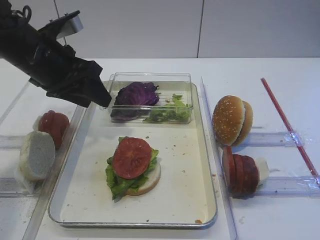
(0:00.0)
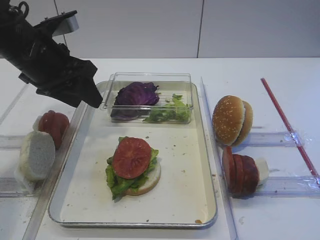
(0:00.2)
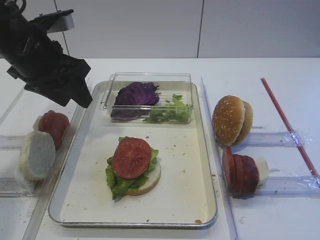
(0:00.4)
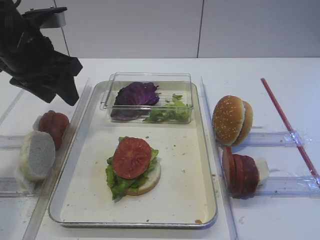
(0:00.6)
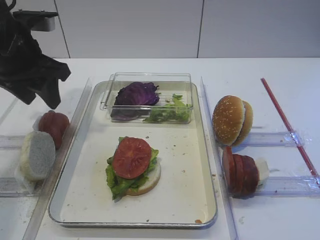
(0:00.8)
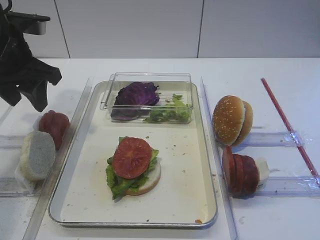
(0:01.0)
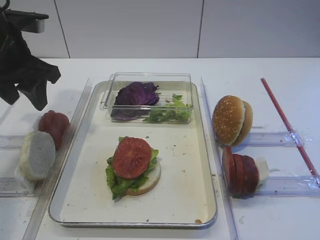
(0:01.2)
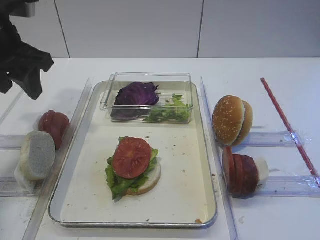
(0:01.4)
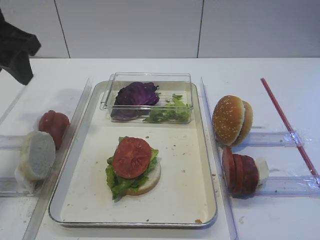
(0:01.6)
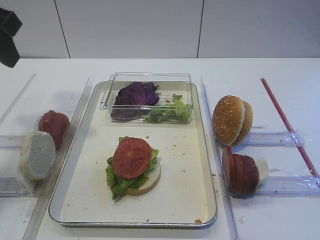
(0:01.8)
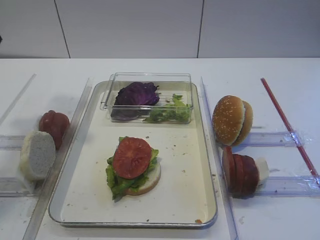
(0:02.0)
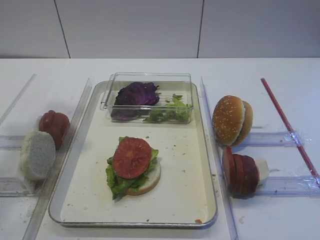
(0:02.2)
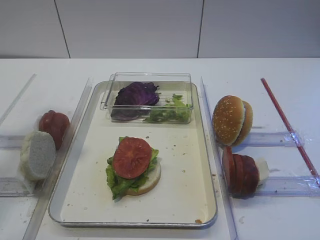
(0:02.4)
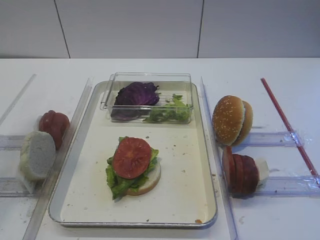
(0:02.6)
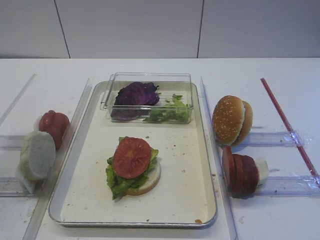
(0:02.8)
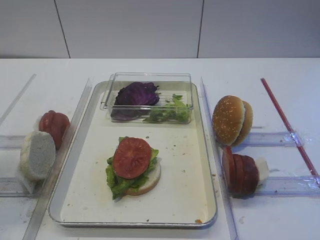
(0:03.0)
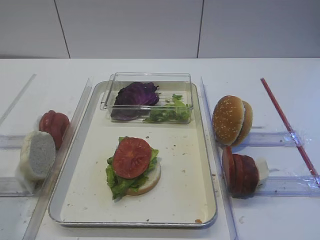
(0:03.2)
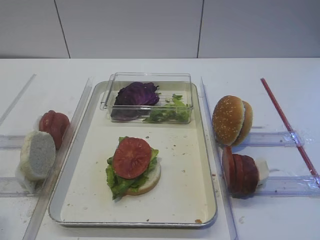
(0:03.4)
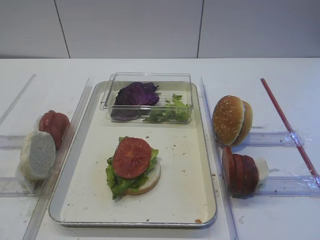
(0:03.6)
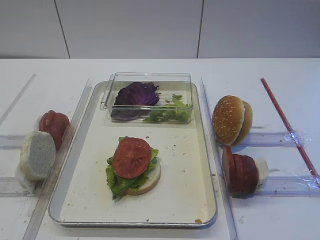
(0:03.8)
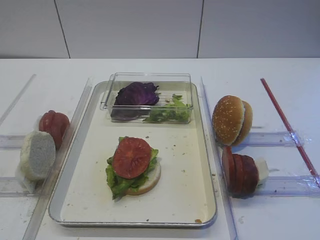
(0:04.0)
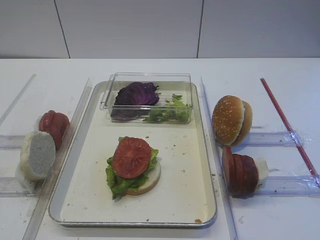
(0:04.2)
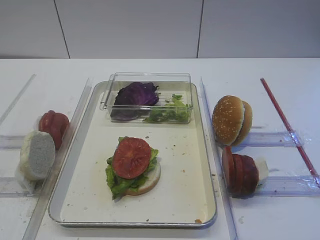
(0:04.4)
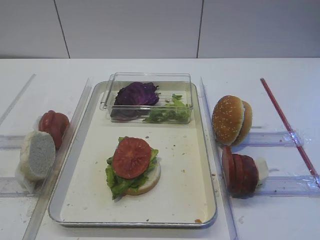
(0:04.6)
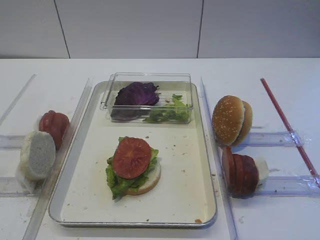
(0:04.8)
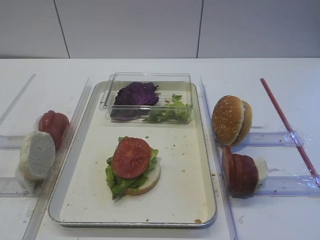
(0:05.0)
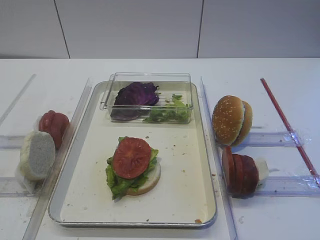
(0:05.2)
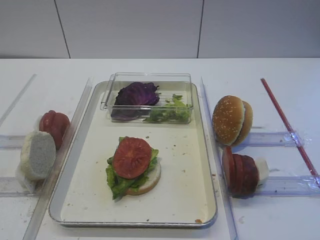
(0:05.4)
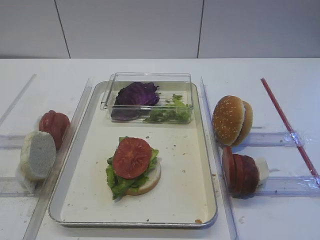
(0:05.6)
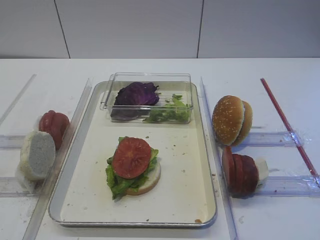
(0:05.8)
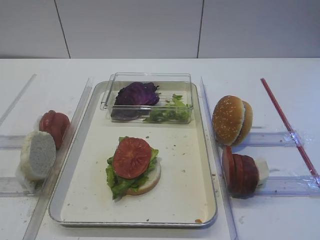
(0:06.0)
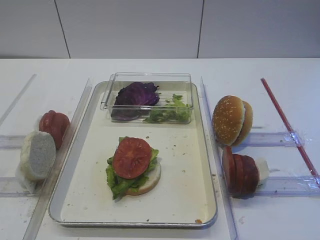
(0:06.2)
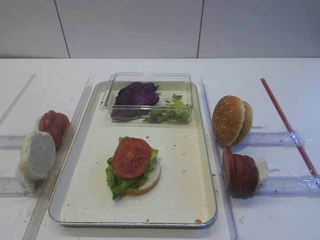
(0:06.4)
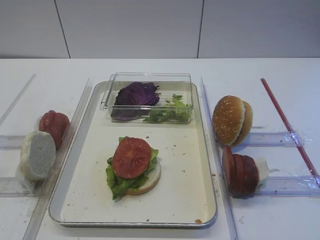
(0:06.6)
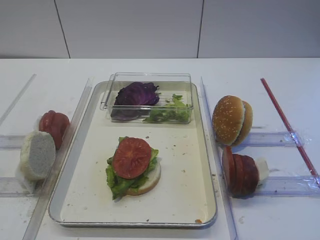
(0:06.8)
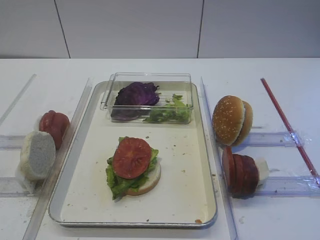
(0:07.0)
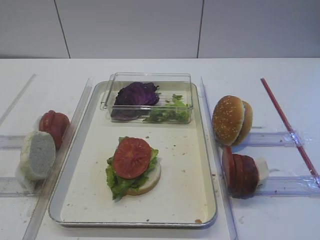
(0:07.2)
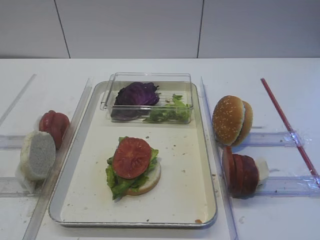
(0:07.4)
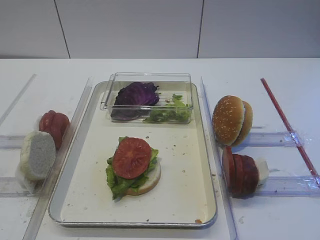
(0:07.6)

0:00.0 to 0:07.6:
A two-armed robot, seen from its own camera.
0:00.0 to 0:01.6: The left gripper travels upward and to the left by about 10 cm.
0:01.6 to 0:03.0: The left gripper heads backward, covering some 20 cm.
0:03.0 to 0:04.6: The left gripper goes roughly 15 cm downward and backward.
0:04.6 to 0:06.0: The two grippers keep their place.

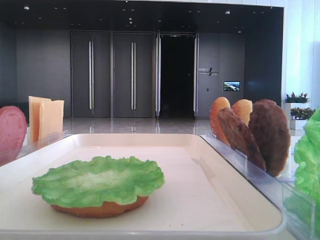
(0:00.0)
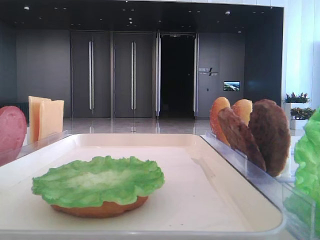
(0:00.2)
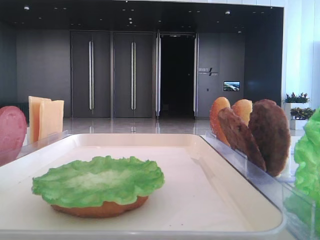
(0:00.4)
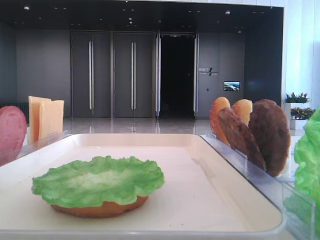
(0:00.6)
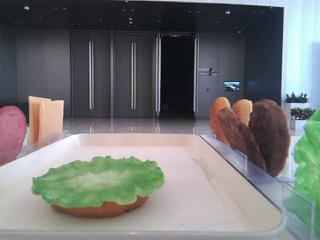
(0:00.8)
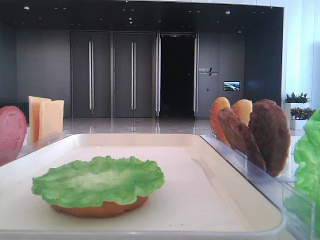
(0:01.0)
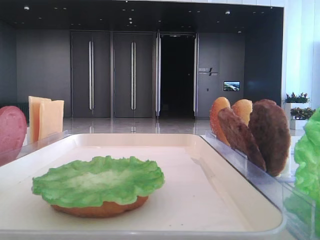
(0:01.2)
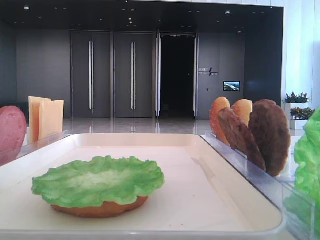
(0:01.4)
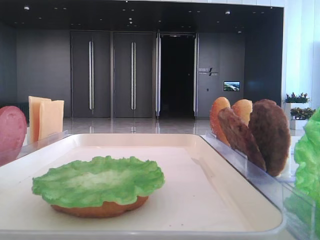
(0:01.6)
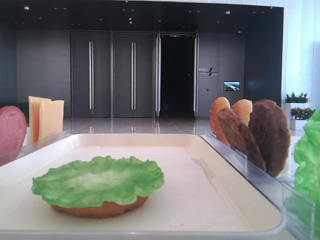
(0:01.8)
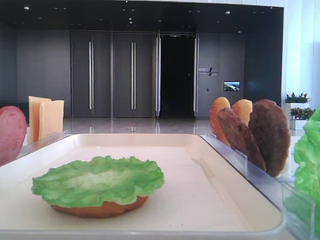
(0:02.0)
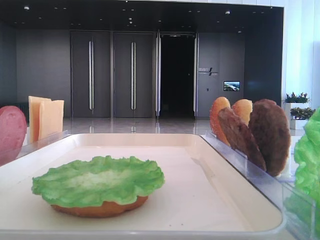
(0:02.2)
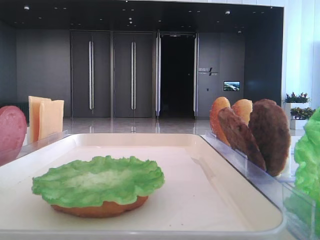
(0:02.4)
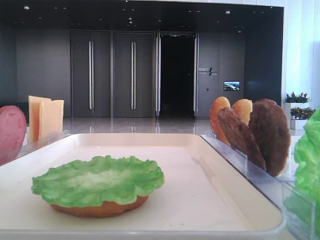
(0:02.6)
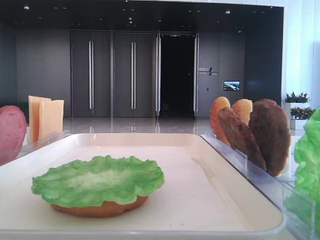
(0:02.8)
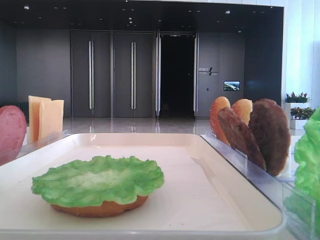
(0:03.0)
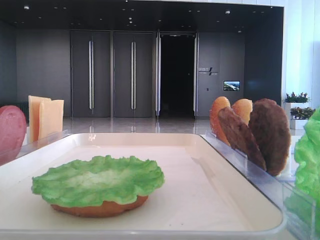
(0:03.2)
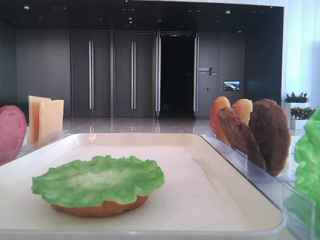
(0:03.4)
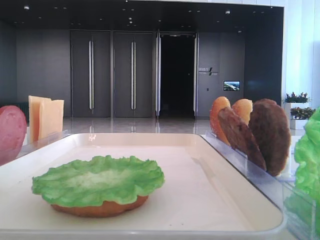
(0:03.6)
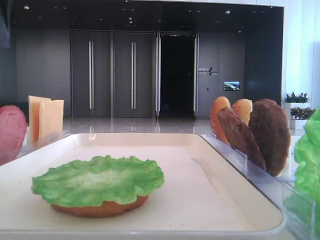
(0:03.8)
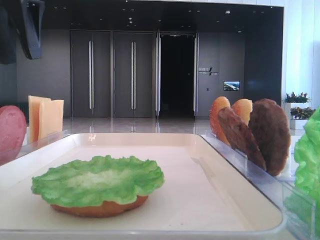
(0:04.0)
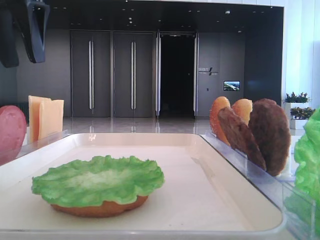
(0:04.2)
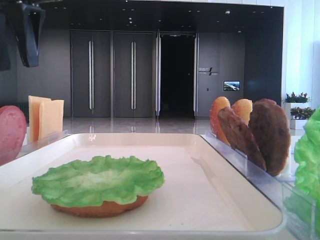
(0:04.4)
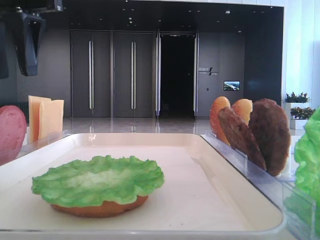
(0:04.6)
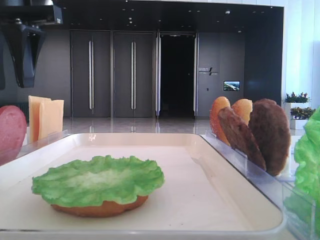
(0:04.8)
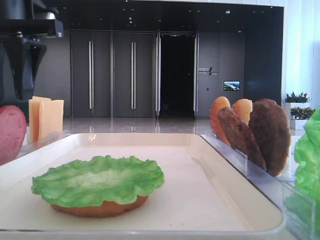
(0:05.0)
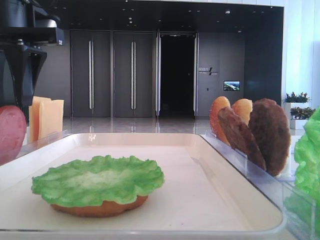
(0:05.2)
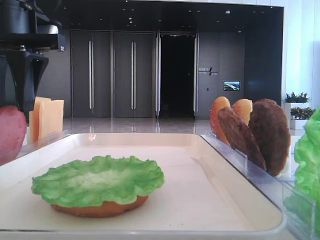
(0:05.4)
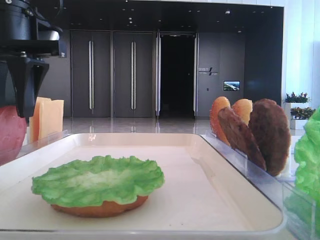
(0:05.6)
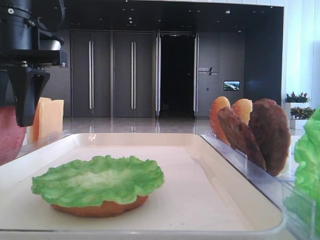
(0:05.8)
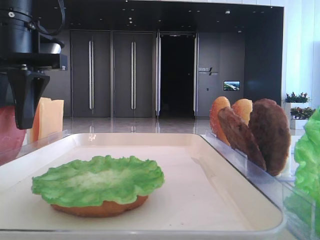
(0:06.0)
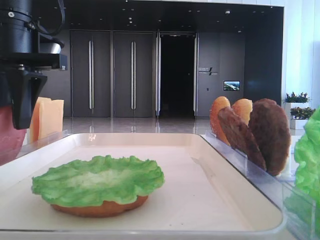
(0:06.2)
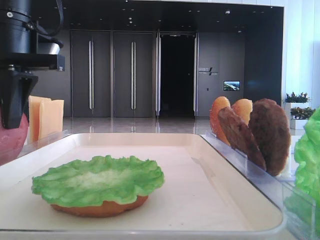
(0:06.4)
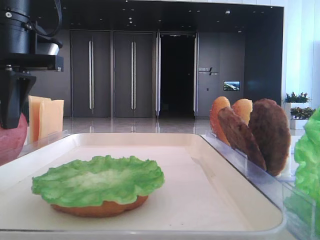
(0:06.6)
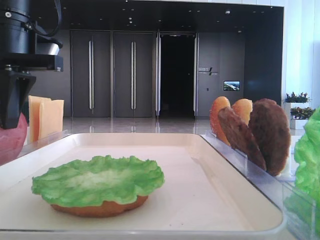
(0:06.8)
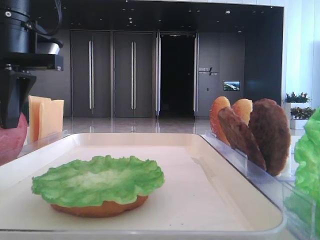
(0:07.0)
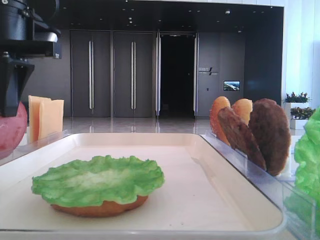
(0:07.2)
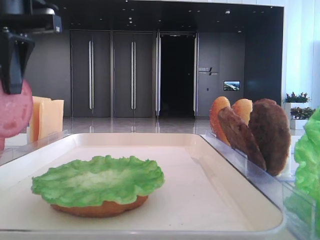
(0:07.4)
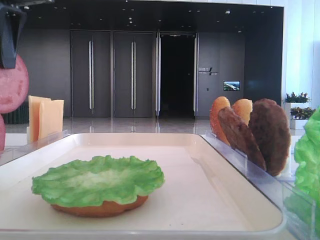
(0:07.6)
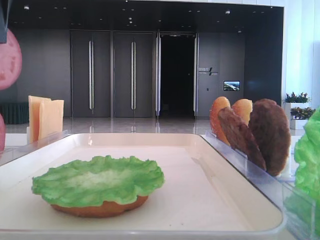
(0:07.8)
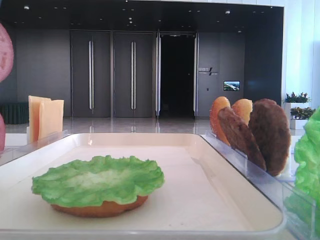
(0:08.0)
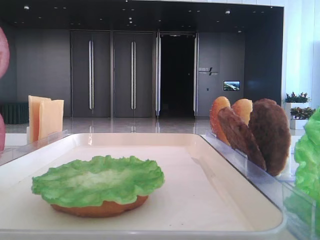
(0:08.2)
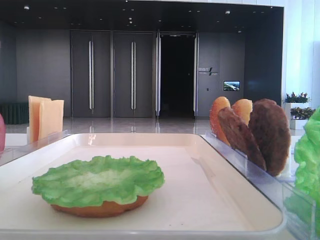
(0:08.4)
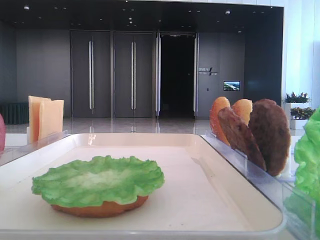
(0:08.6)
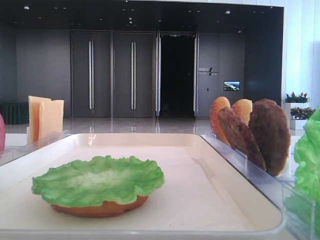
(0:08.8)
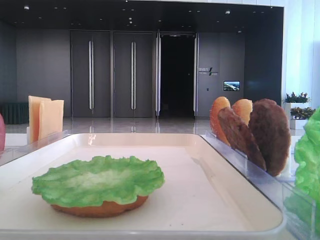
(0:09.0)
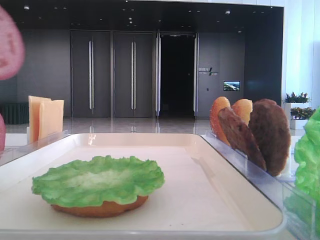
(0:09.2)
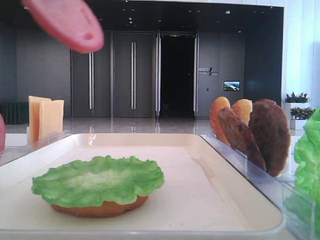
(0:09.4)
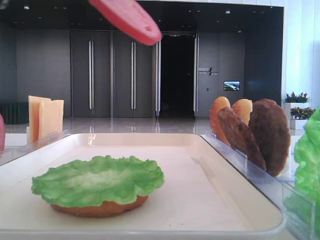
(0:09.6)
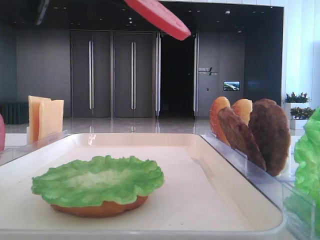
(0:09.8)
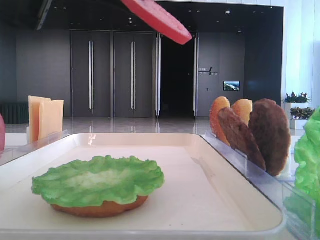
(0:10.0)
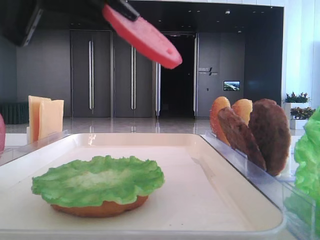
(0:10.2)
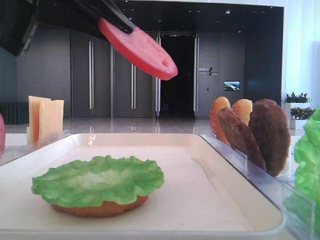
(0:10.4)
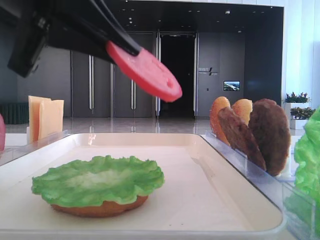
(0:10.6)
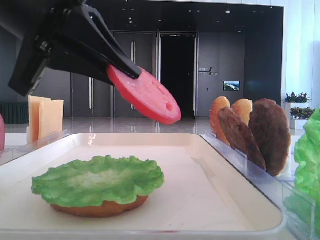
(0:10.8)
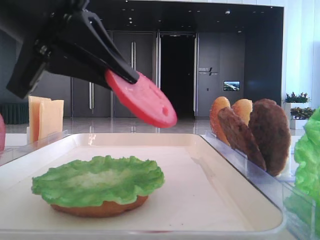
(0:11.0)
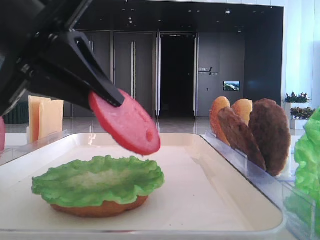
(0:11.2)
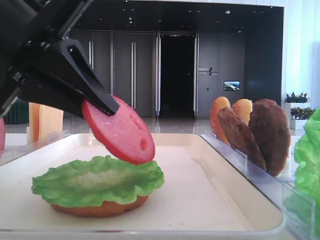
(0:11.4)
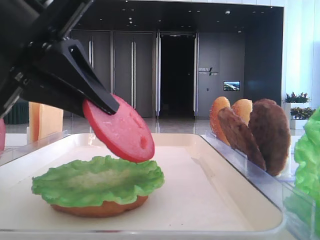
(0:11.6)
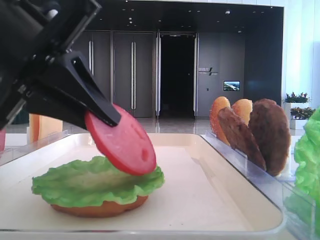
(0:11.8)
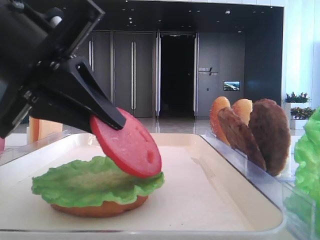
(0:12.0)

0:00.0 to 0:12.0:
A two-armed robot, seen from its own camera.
Step, 0:00.0 to 0:06.8: Pick up the tomato slice with the left hand.
0:03.0 to 0:04.4: The left gripper is displaced to the right and downward by roughly 15 cm.
0:04.4 to 0:06.0: The left gripper heads downward, covering about 5 cm.
0:06.0 to 0:07.6: The left gripper moves upward, roughly 5 cm, and closes.
0:07.6 to 0:09.0: The left gripper heads backward, covering roughly 10 cm.
0:09.0 to 0:10.4: The left gripper shifts some 10 cm to the right and downward.
0:10.4 to 0:12.0: The left gripper is displaced downward by approximately 5 cm.

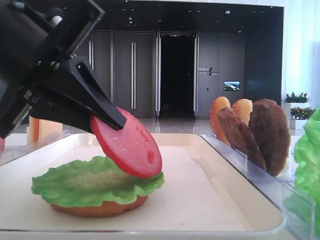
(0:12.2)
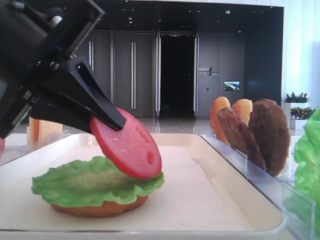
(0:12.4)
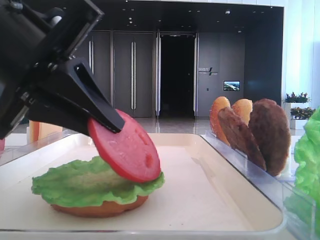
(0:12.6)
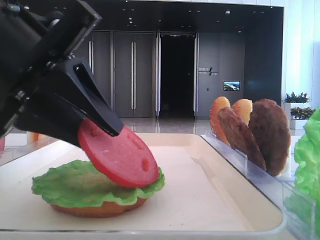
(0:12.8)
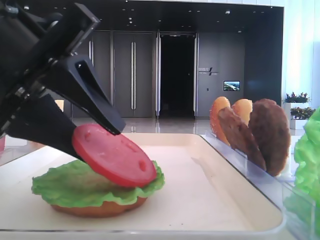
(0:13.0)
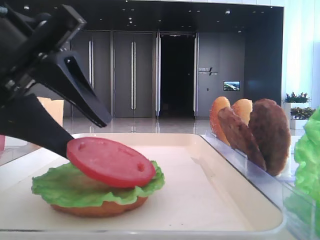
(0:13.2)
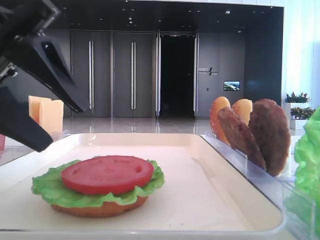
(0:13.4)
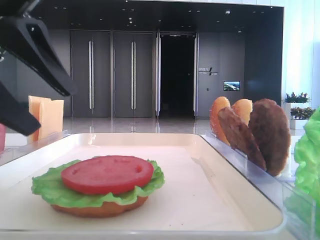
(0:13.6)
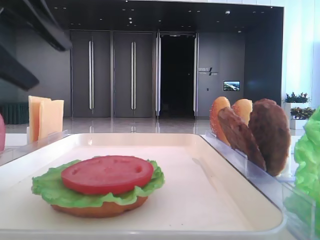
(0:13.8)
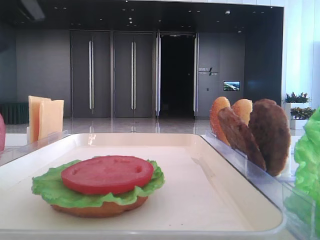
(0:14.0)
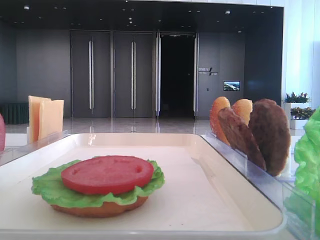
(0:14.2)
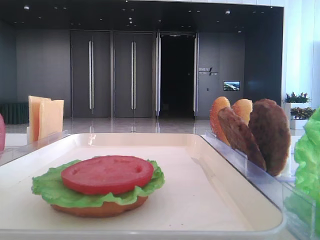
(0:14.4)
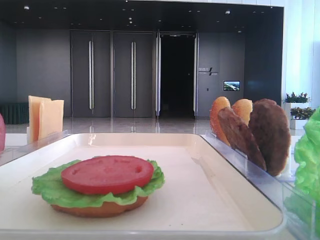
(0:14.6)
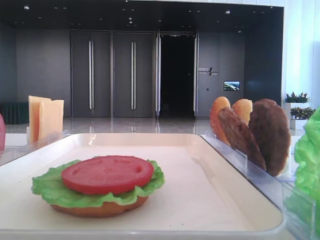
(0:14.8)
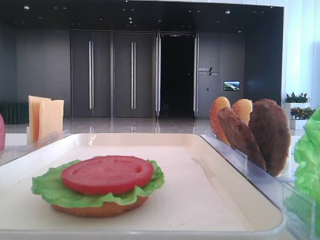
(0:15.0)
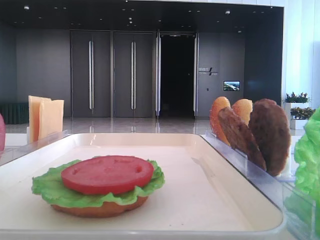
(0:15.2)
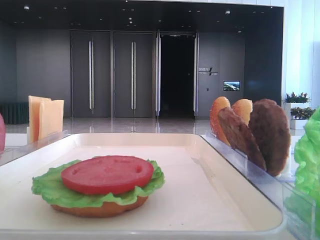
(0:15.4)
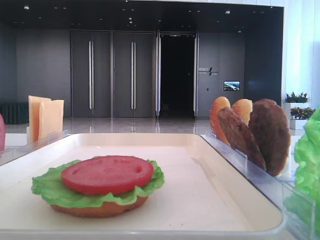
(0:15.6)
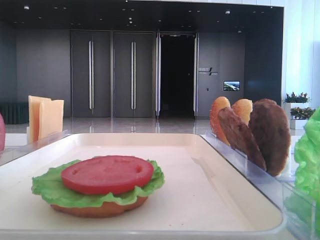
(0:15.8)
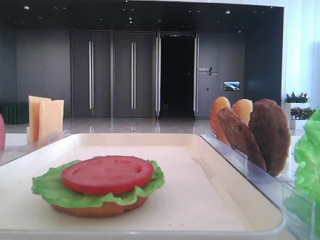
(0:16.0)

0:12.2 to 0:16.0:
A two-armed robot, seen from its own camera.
0:12.2 to 0:13.4: The left gripper opens its fingers.
0:13.4 to 0:14.8: The left gripper goes roughly 20 cm upward and to the left.
